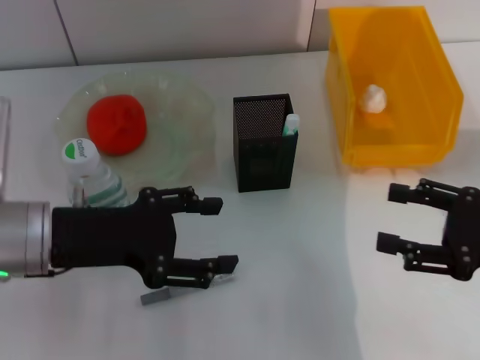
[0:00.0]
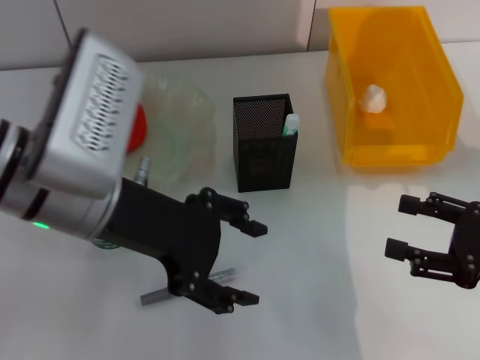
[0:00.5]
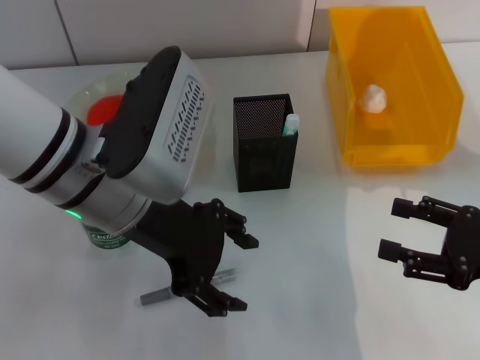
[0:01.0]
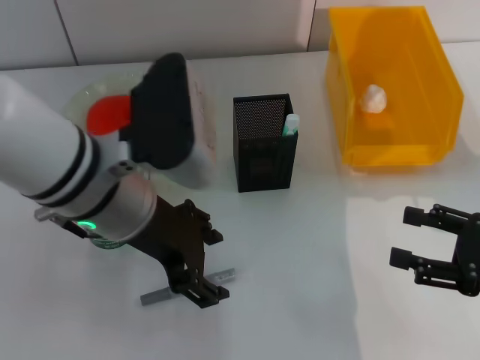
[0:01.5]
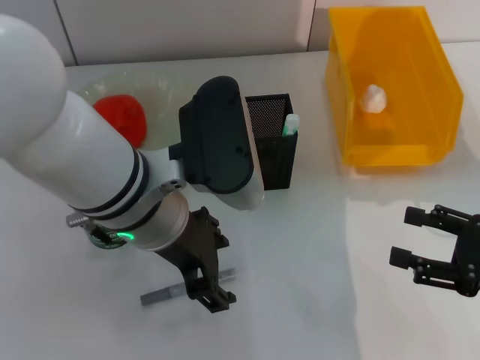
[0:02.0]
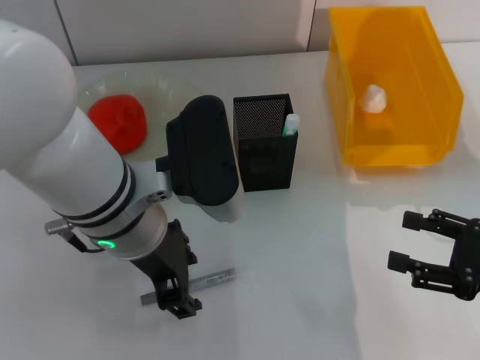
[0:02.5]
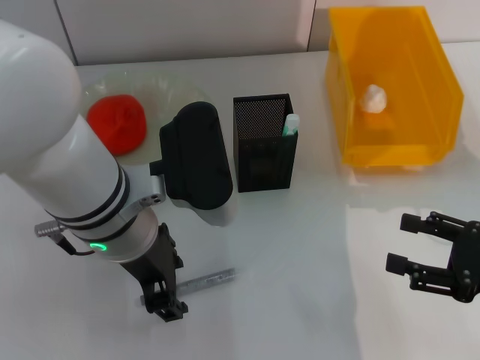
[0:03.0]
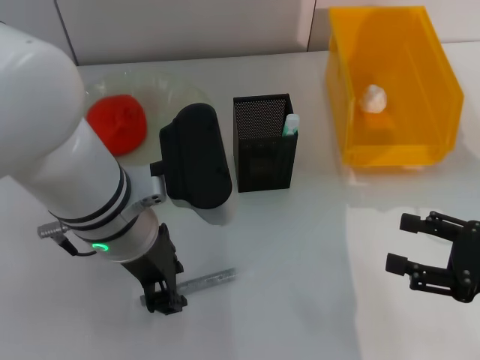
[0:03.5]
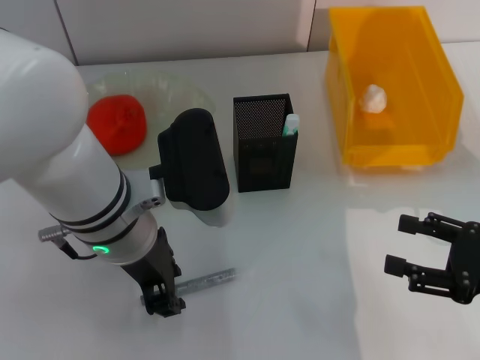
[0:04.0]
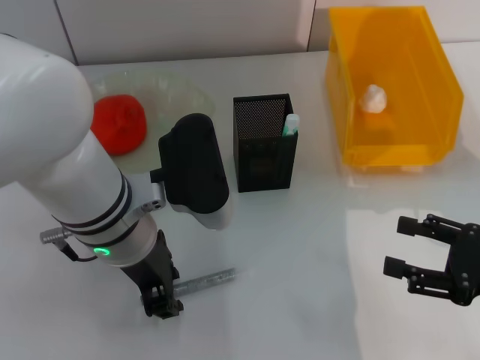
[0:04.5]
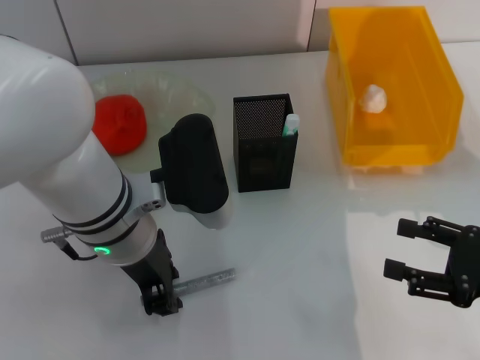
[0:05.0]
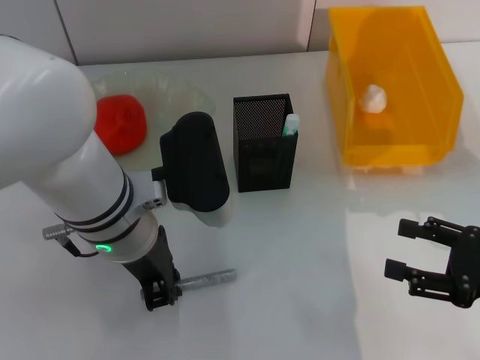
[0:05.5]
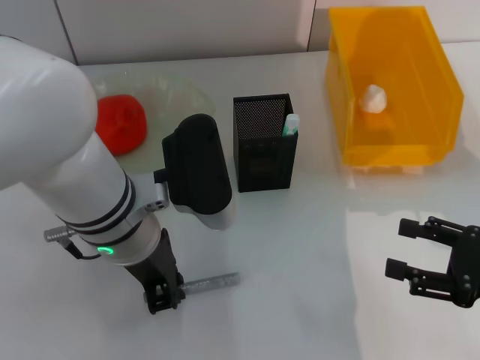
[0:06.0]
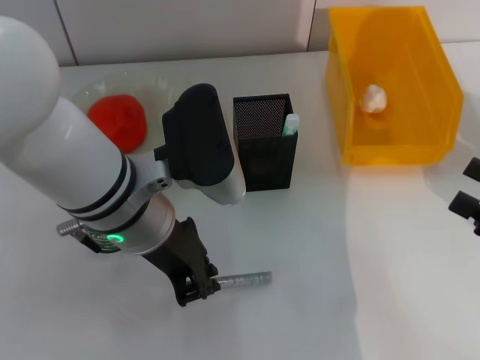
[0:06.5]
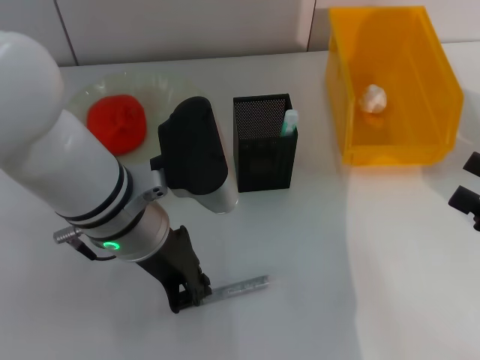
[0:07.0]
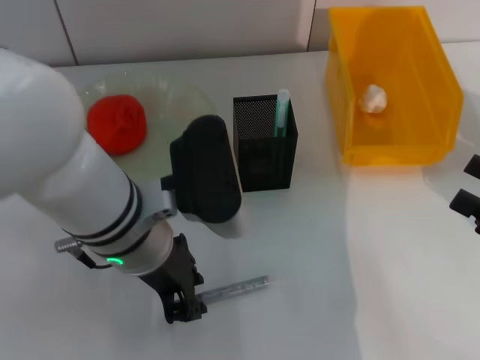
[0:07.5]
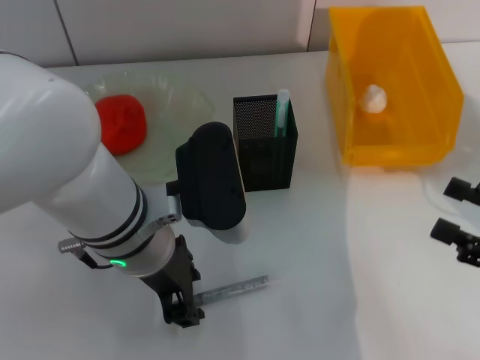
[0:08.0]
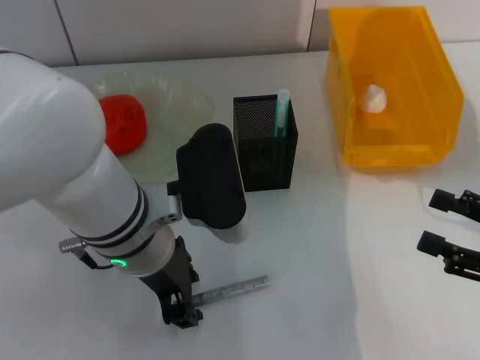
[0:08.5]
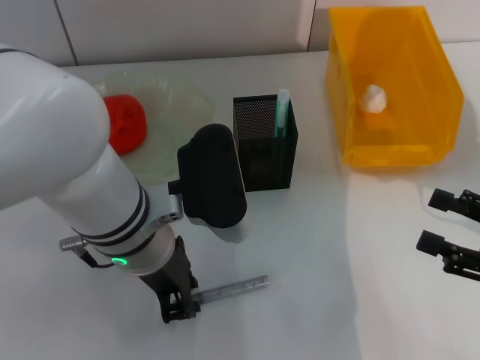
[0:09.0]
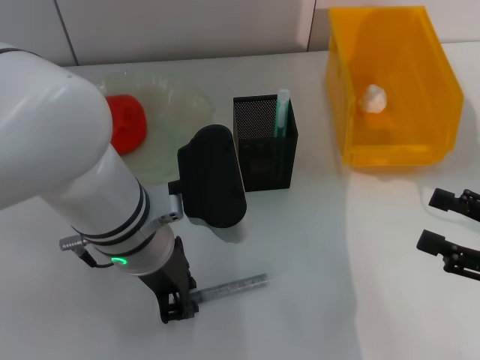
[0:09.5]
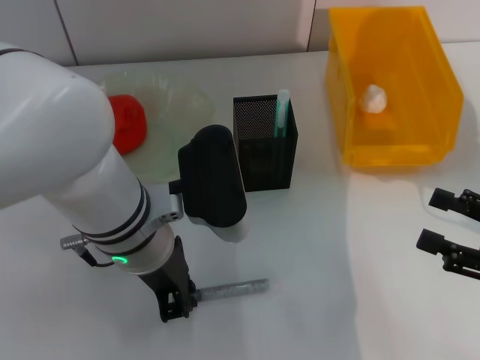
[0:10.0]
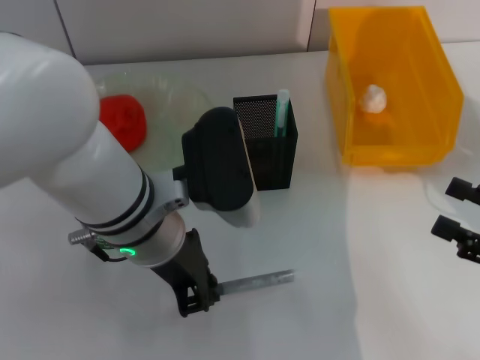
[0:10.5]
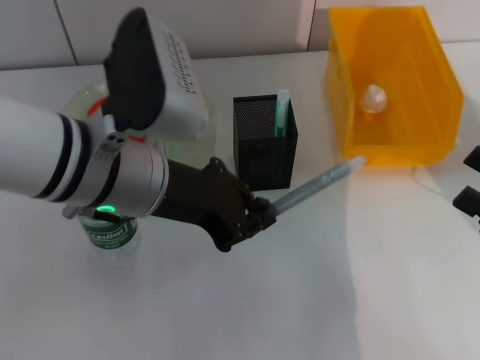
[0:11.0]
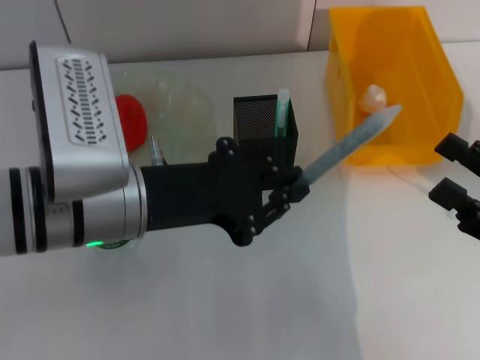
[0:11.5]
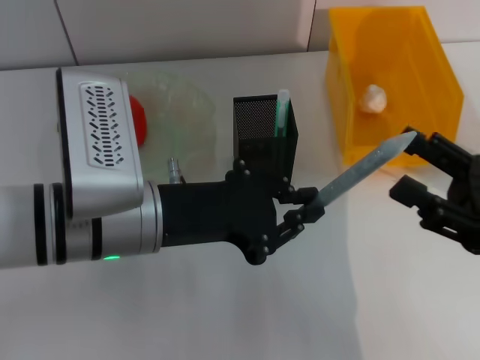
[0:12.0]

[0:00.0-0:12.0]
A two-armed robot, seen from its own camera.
Step, 0:00.0 to 0:06.0: Grab the gray glue with the left hand.
0:00.0 to 0:02.0: The left gripper travels to the right by approximately 15 cm.
0:02.0 to 0:04.0: The left gripper closes up.
0:04.0 to 0:06.0: The left gripper closes up.
0:06.0 to 0:08.0: The left gripper opens its fingers.
0:08.0 to 0:10.0: The left gripper closes up.
0:10.0 to 0:12.0: The right gripper shifts roughly 5 cm to the left.

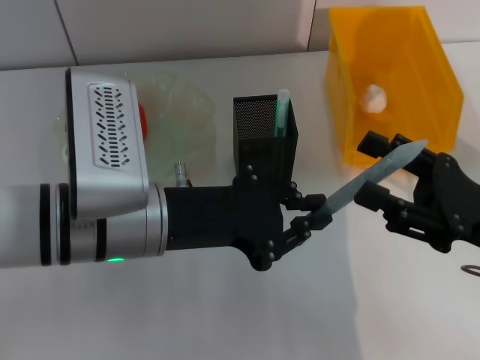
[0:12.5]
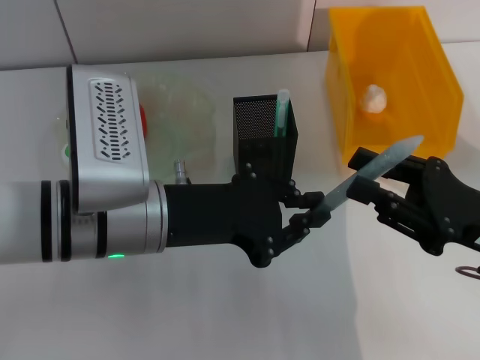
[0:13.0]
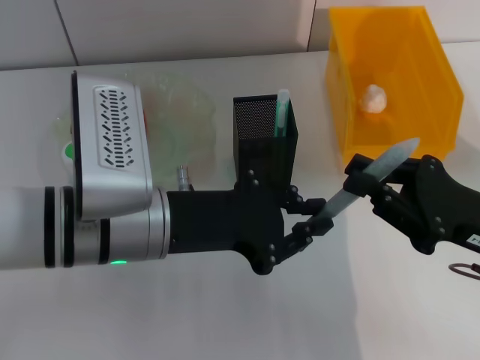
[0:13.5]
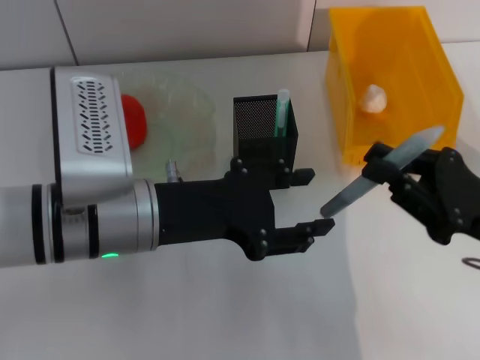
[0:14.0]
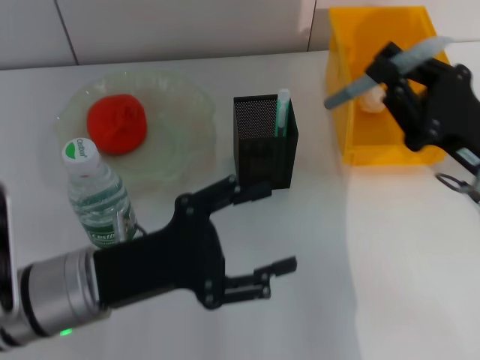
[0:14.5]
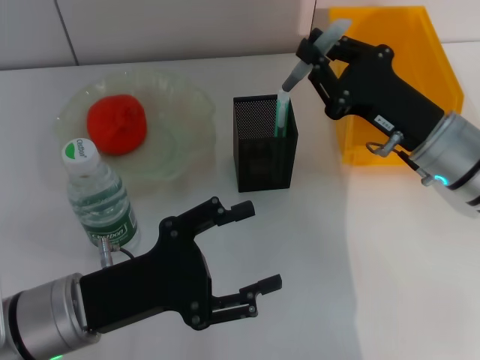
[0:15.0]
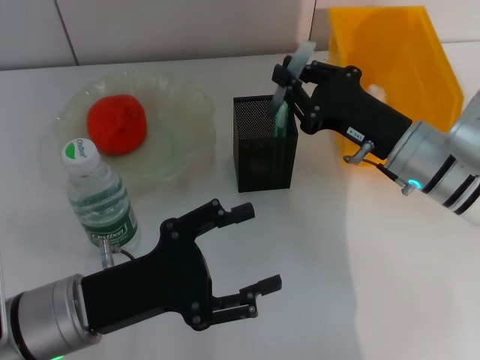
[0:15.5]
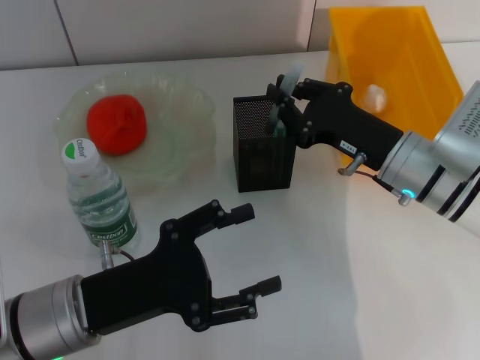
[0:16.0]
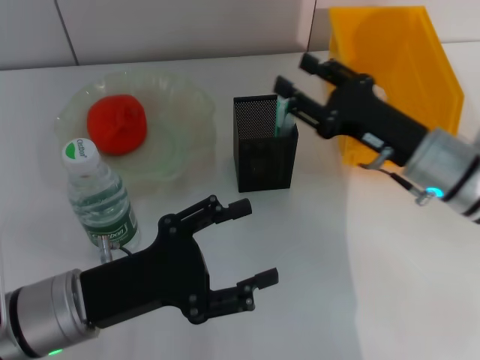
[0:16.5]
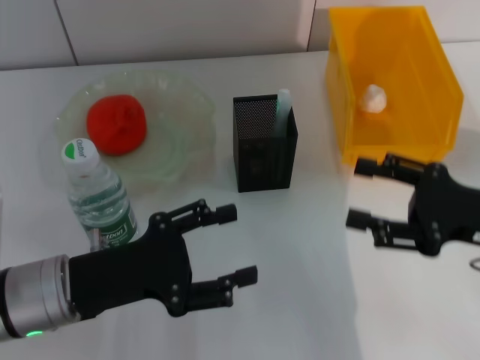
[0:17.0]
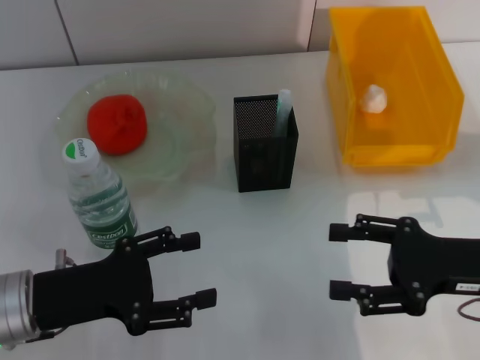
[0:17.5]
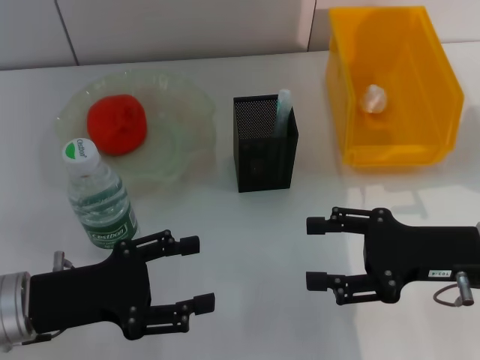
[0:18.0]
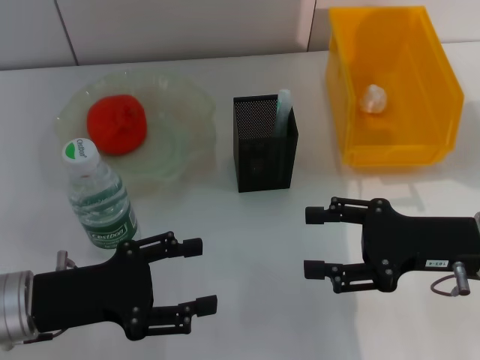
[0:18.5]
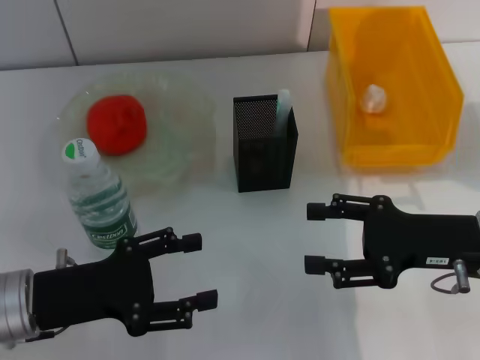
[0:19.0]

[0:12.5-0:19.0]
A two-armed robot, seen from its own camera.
Step, 0:14.0 to 0:16.0: Place the gray glue into the pen holder with the right hand.
0:12.5 to 0:14.5: The right gripper closes, while the left gripper heads downward and to the left, covering about 10 cm, and opens up.
0:14.5 to 0:17.0: The right gripper reaches some 5 cm to the left, then returns, and opens its fingers.
0:17.0 to 0:19.0: The grippers move only a little.

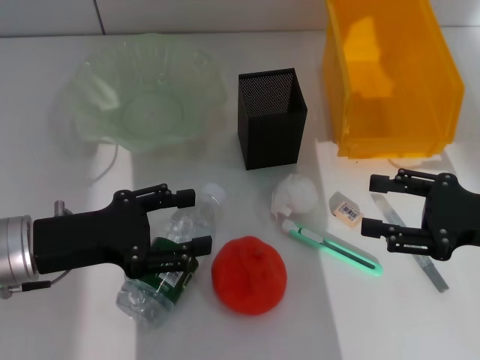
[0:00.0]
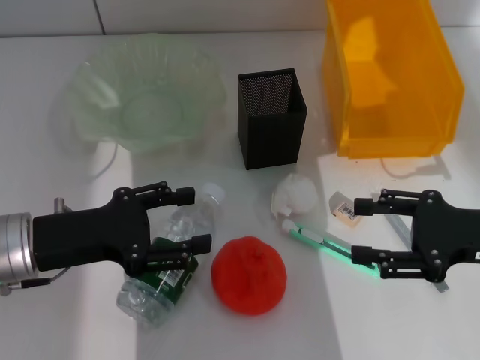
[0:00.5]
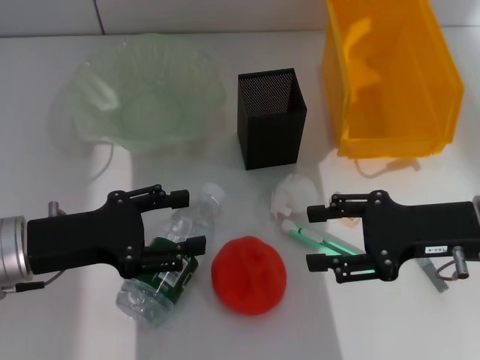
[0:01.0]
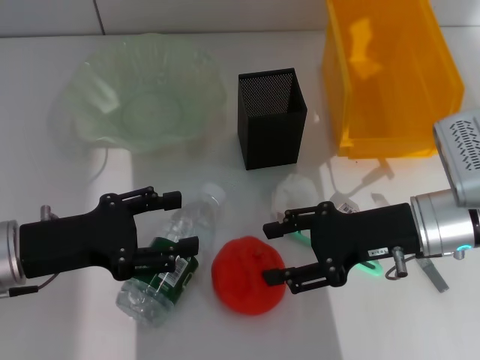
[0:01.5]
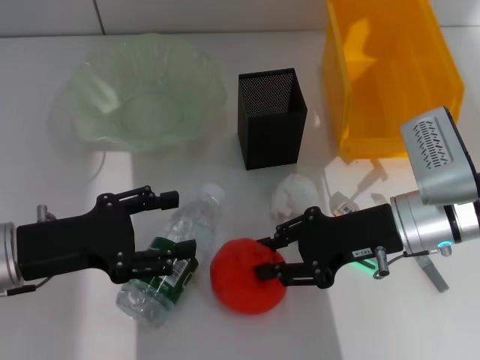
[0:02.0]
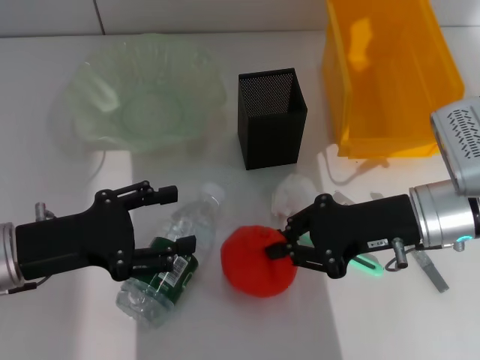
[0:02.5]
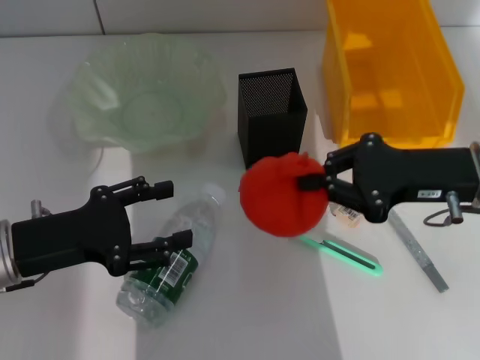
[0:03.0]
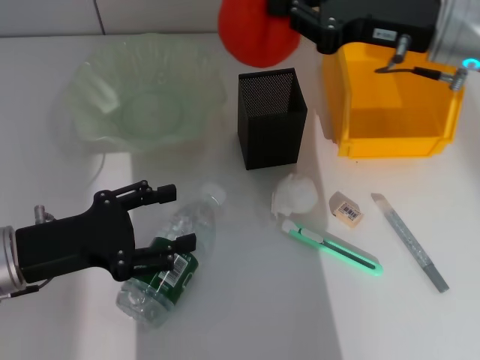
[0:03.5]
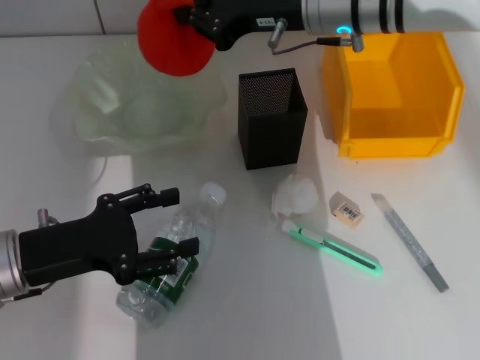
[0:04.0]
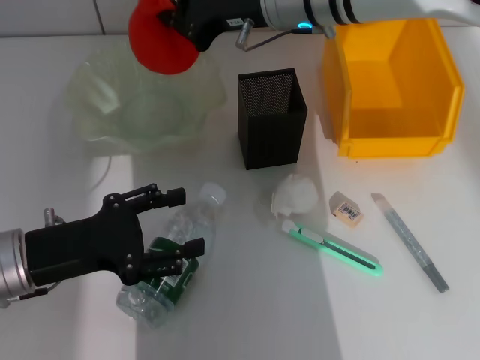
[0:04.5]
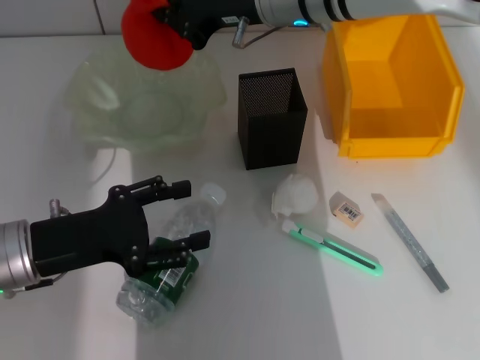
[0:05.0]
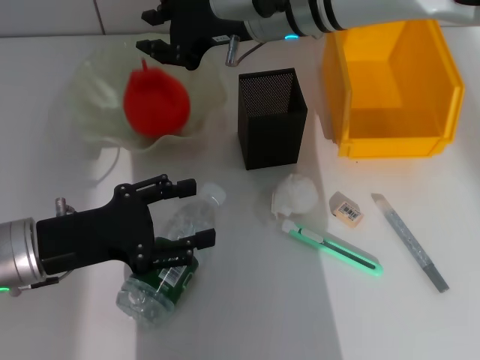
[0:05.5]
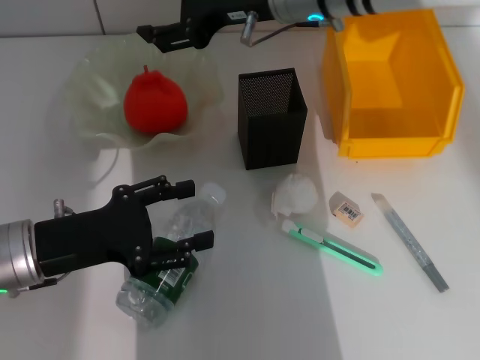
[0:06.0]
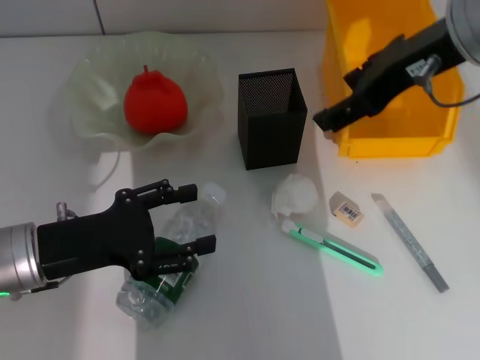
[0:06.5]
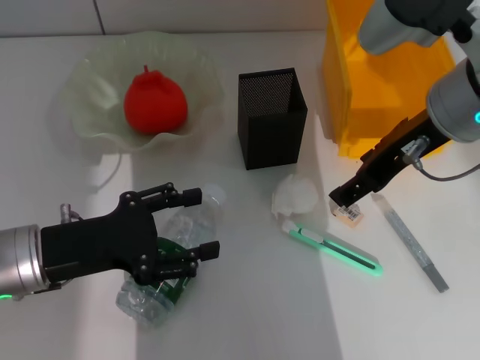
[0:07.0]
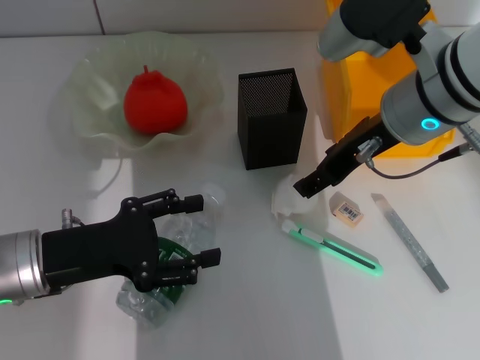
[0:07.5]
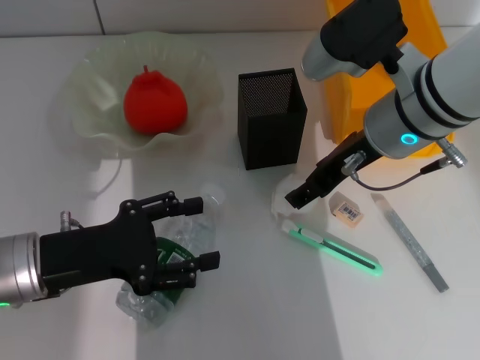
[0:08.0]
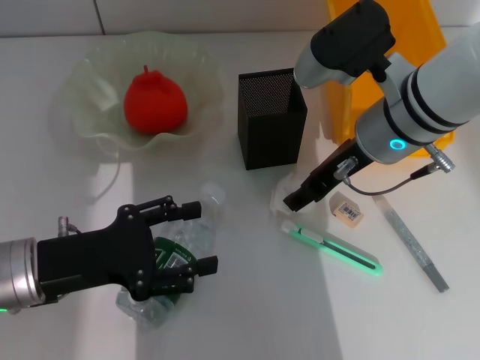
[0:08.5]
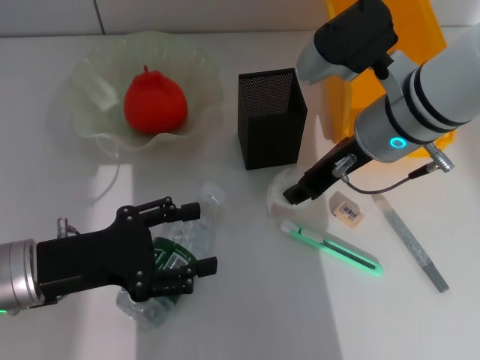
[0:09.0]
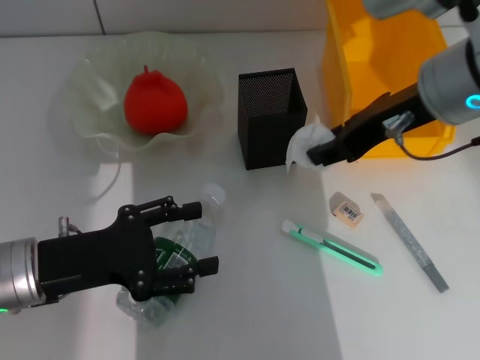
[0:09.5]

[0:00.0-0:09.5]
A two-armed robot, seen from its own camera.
Step, 0:00.0 to 0:02.0: Grab the orange with the right hand.
Step, 0:02.5 to 0:05.0: Place the orange into the fruit bowl with the right hand.
Step, 0:06.0 to 0:08.5: Grab the paper ball with the right hand.
0:00.0 to 0:02.0: The right gripper travels to the left by some 10 cm.
0:02.0 to 0:04.0: The right gripper shifts some 20 cm forward, upward and to the left, and closes up.
0:05.5 to 0:07.5: The right gripper moves to the right and backward, about 15 cm, and opens its fingers.
0:07.5 to 0:09.5: The right gripper closes.
